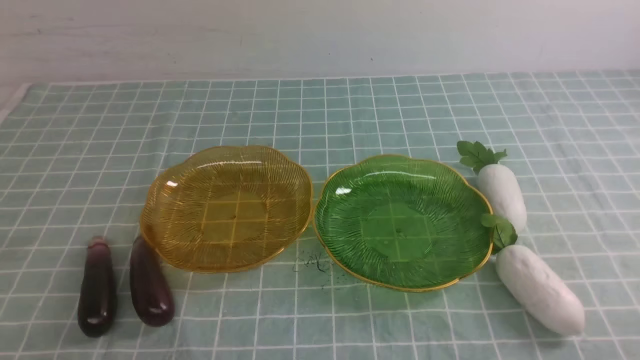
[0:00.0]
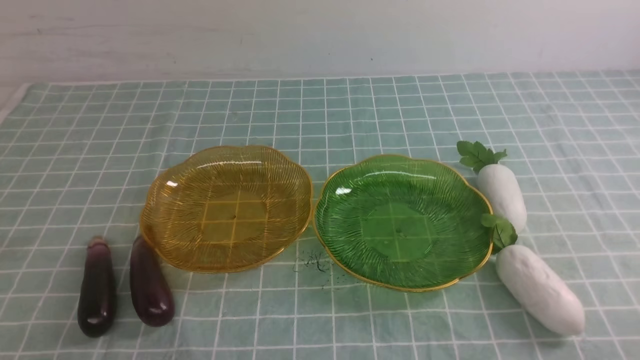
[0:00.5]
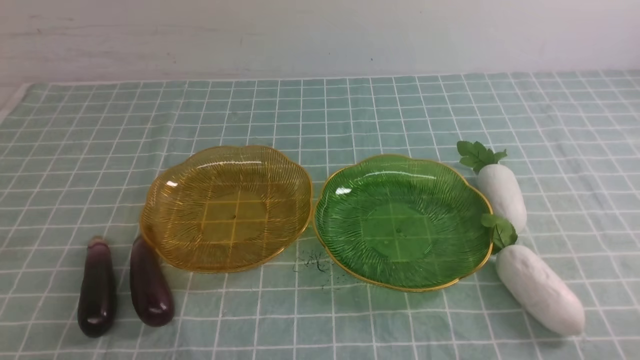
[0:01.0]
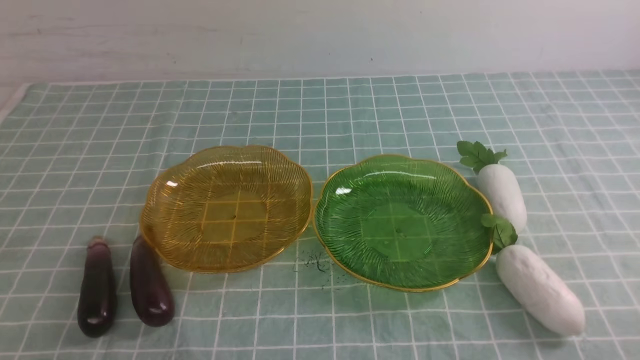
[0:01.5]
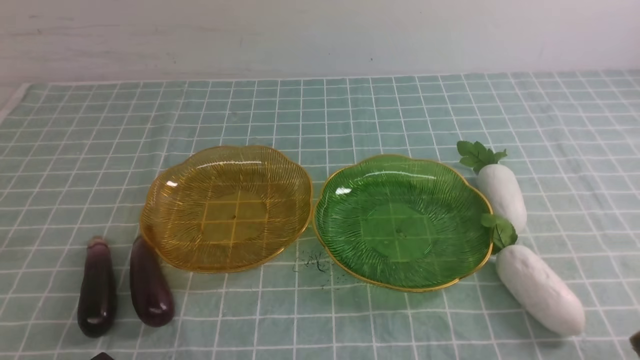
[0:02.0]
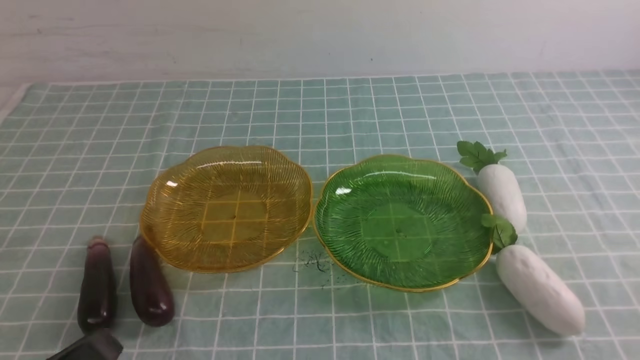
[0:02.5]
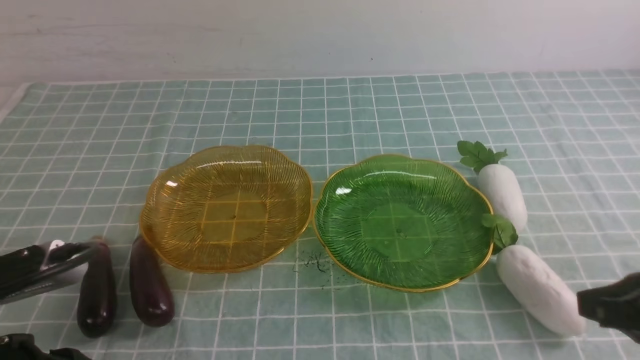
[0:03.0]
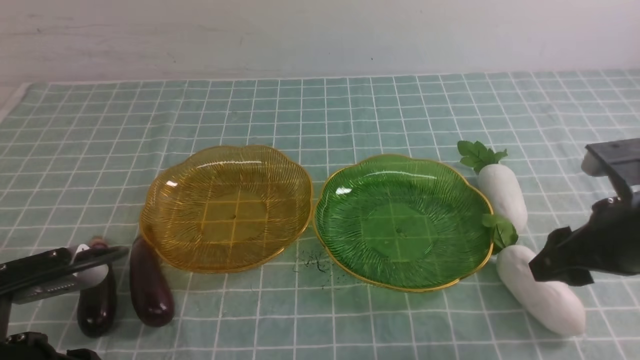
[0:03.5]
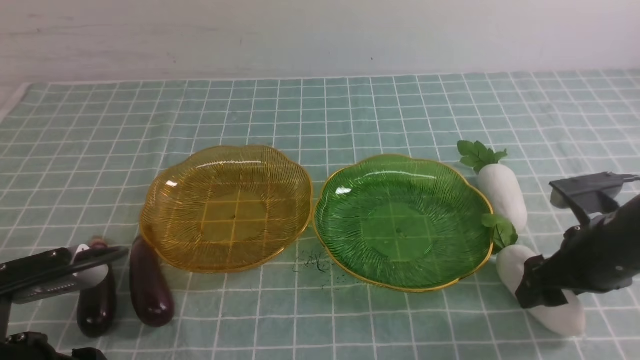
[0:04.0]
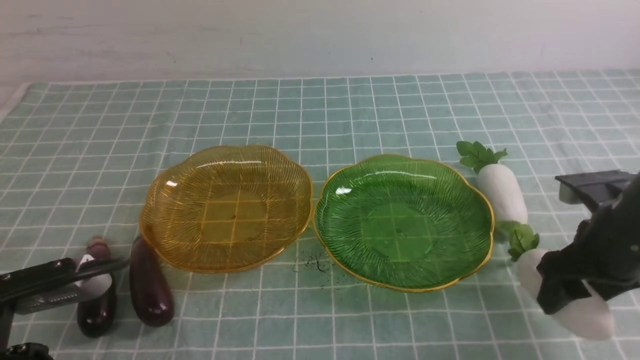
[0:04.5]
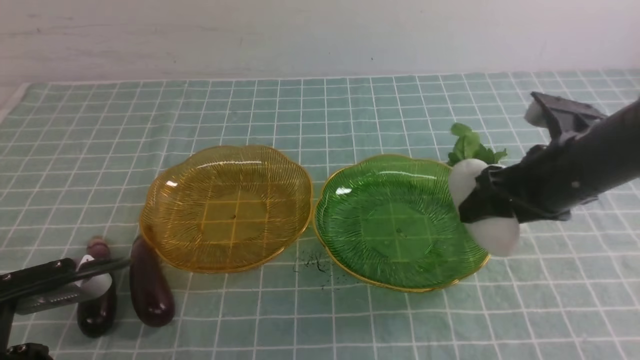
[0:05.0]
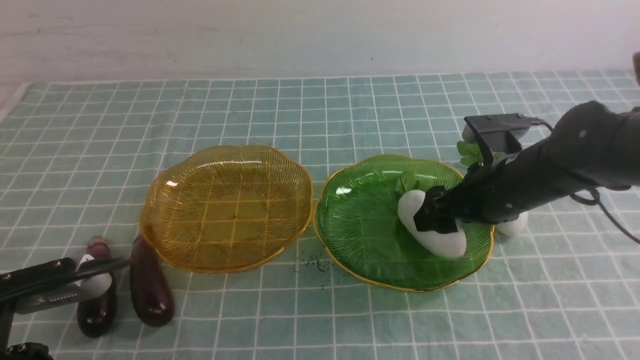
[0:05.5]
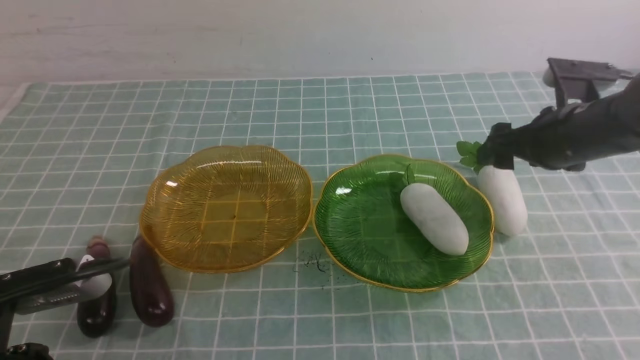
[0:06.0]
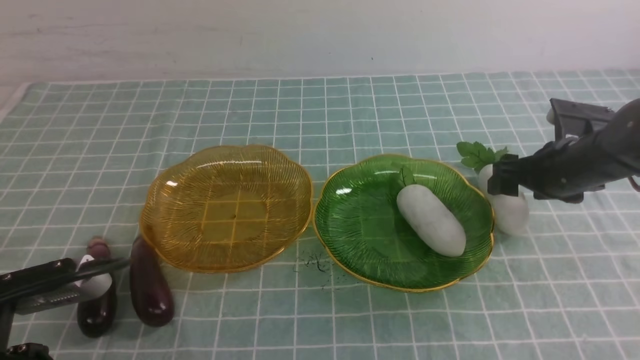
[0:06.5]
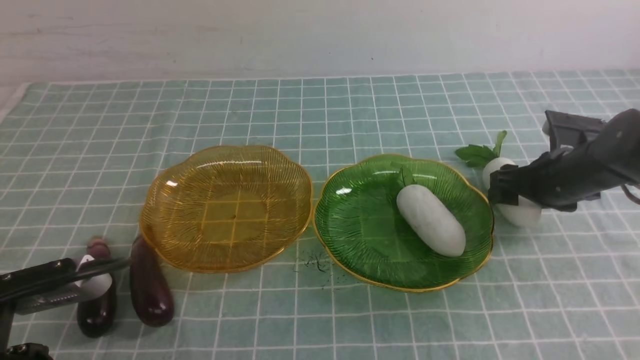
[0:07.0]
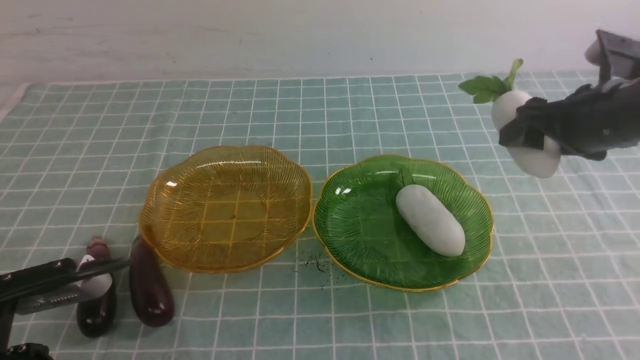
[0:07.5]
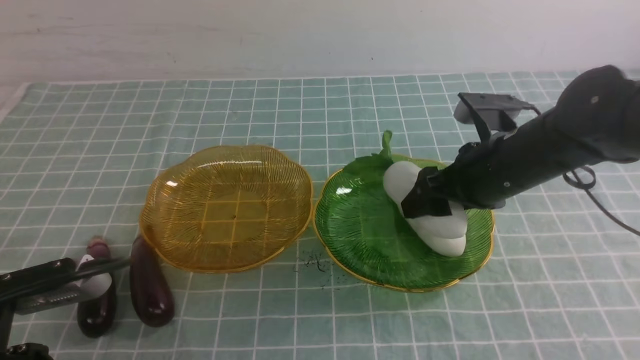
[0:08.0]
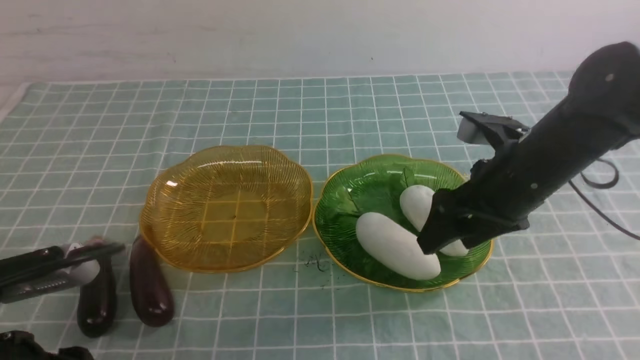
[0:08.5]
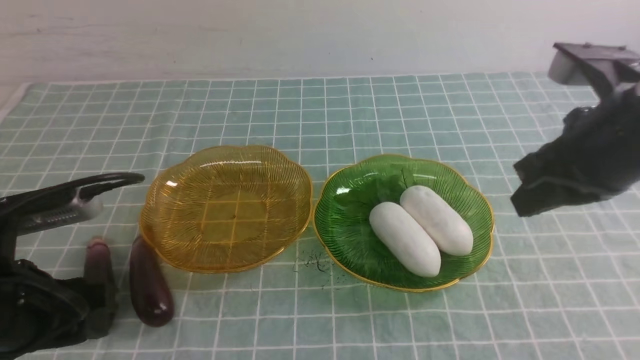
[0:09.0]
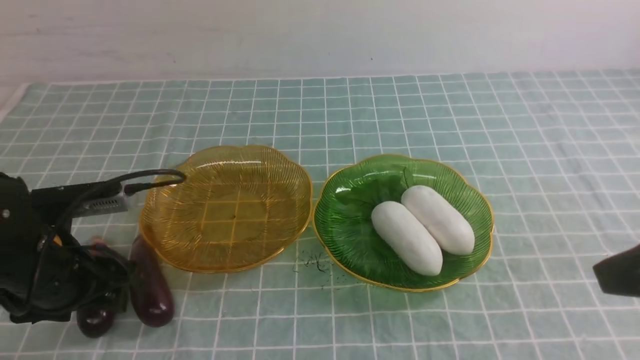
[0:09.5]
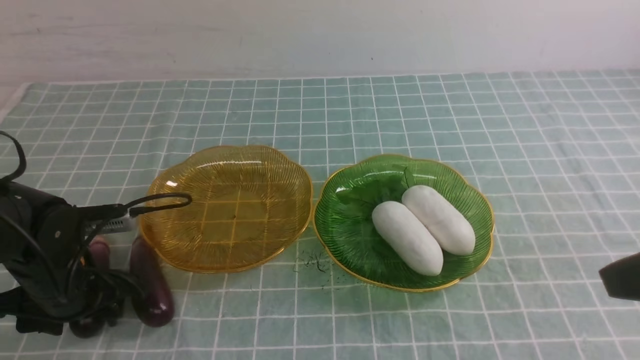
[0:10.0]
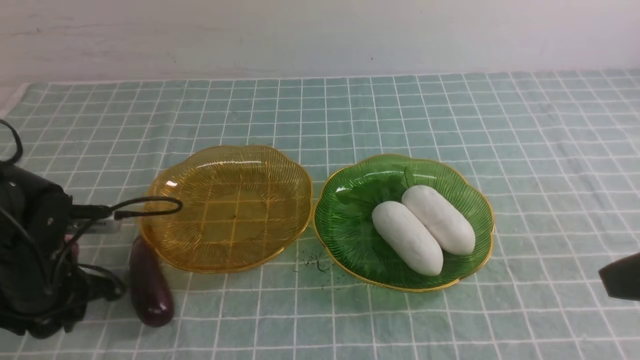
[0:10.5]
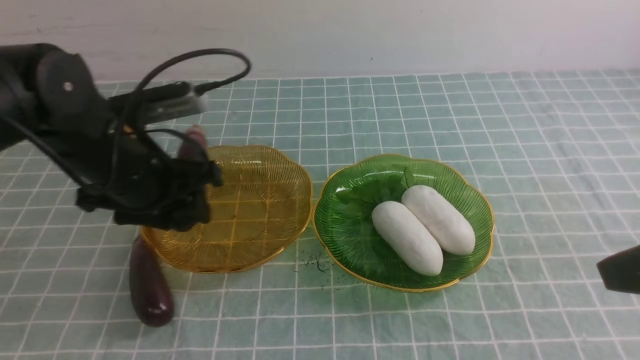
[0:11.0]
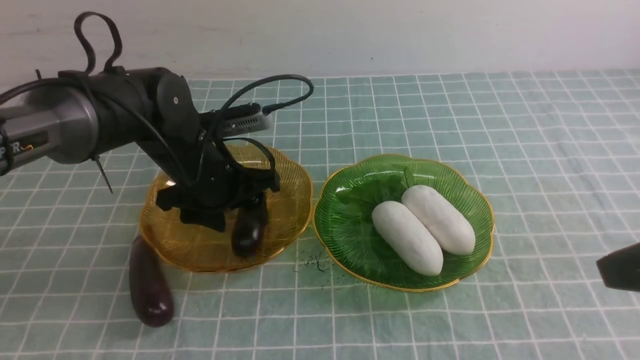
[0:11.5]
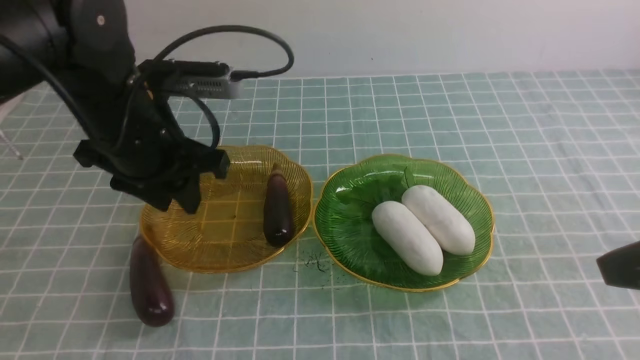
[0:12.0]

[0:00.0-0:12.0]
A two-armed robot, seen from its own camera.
Step, 0:00.0 to 0:08.0: use the right arm to grab a radish and put it into the right plate.
0:02.0 to 0:04.0: The right gripper shifts some 25 cm forward, and opens up. Meanwhile the left gripper moves upward and forward, about 10 cm, and opens up.
0:04.0 to 0:06.0: The right gripper goes about 10 cm forward.
0:06.0 to 0:08.0: The right gripper is displaced to the left by about 10 cm.
0:08.0 to 0:10.0: The left gripper shifts approximately 20 cm forward and downward, and opens its fingers; the right gripper shifts approximately 25 cm backward and upward, and closes its fingers.
0:10.0 to 0:12.0: The left gripper moves upward and to the right, about 15 cm, and closes.

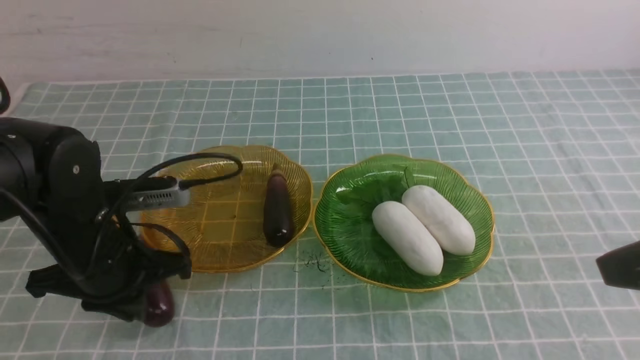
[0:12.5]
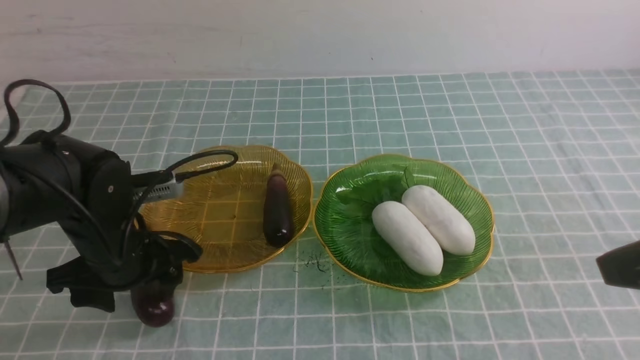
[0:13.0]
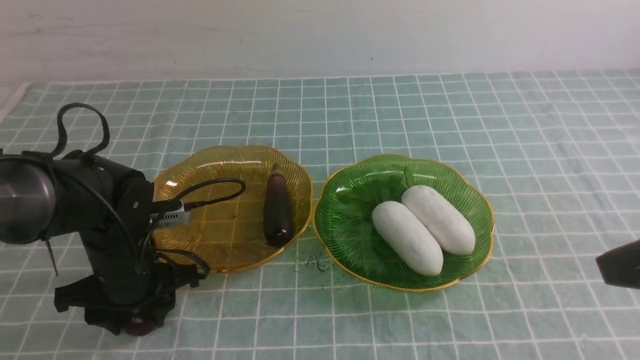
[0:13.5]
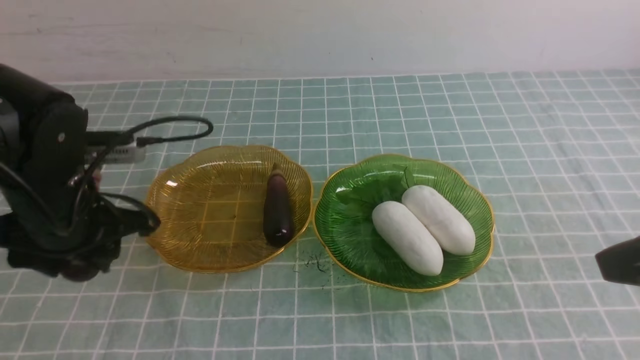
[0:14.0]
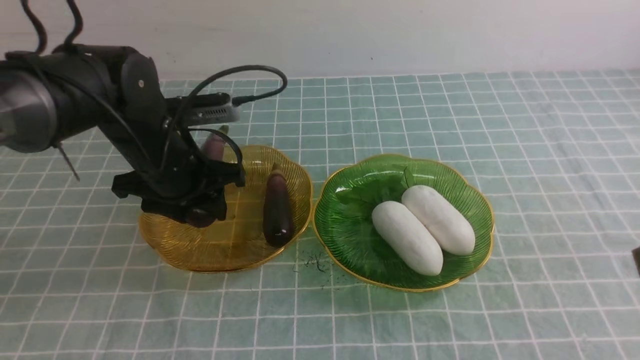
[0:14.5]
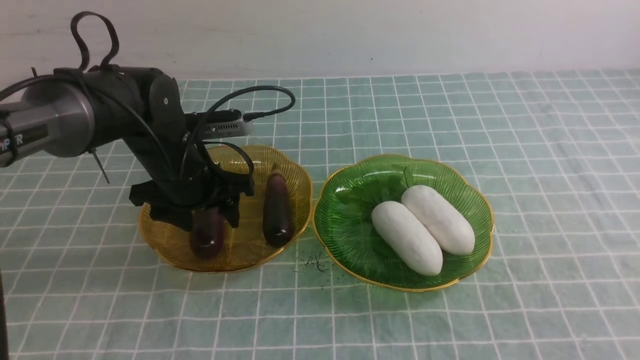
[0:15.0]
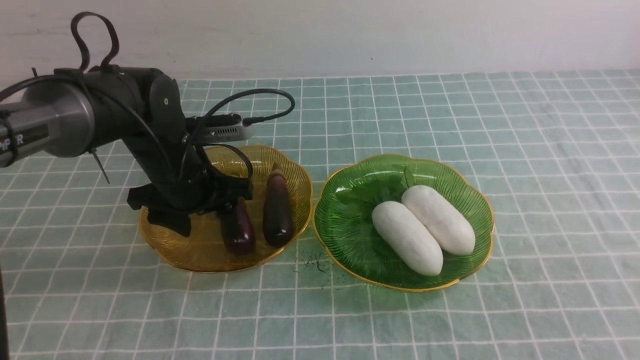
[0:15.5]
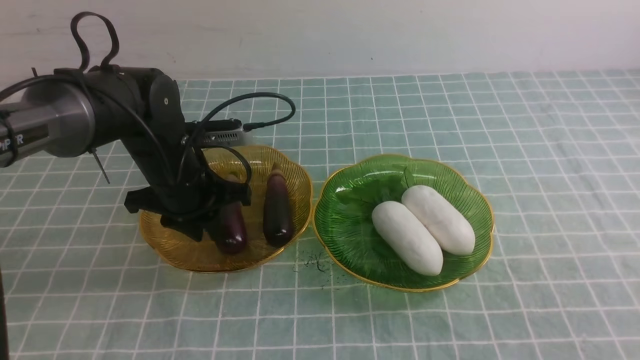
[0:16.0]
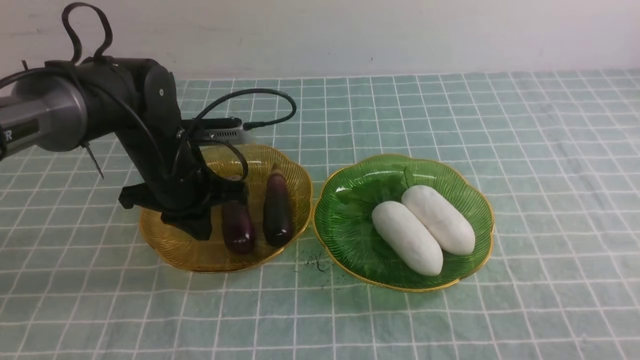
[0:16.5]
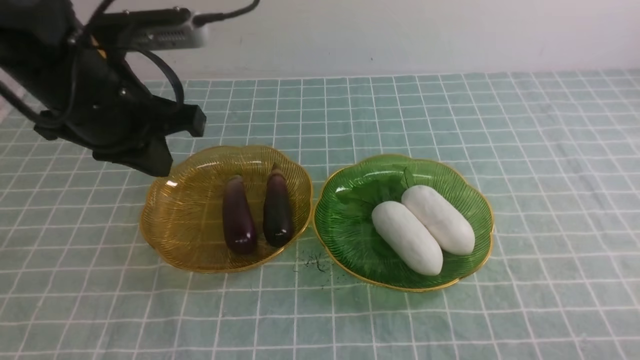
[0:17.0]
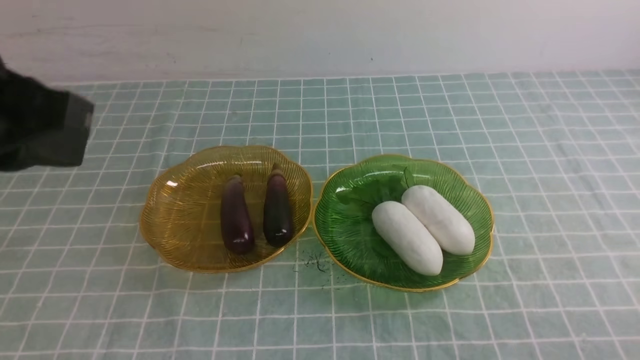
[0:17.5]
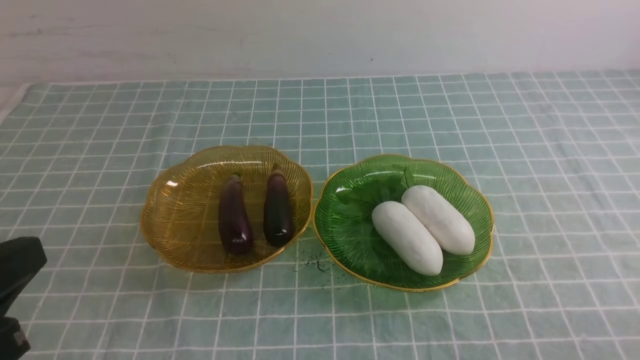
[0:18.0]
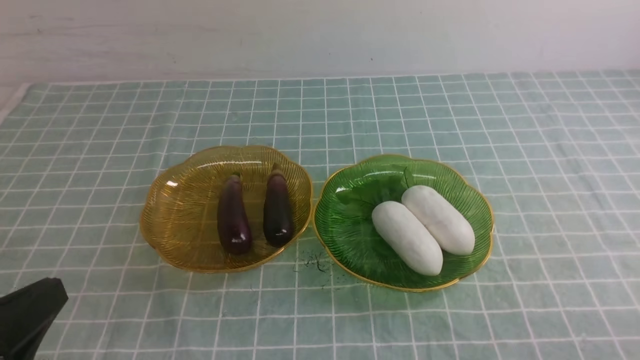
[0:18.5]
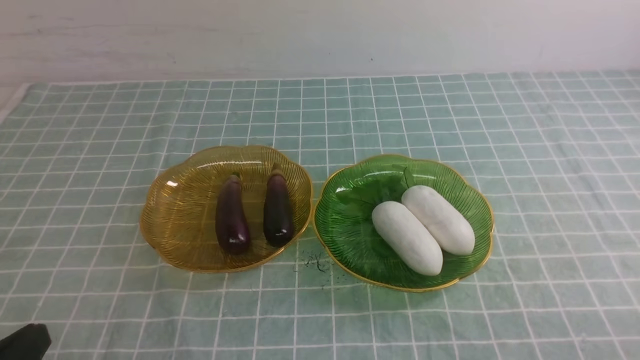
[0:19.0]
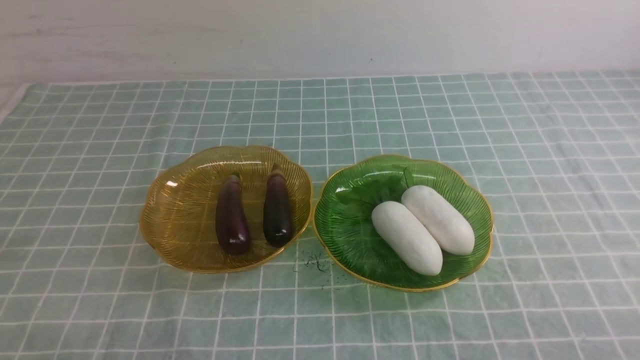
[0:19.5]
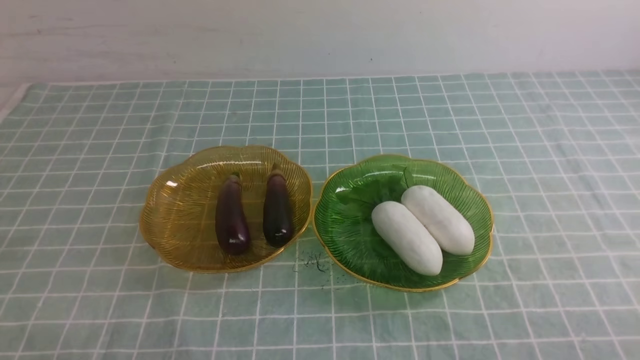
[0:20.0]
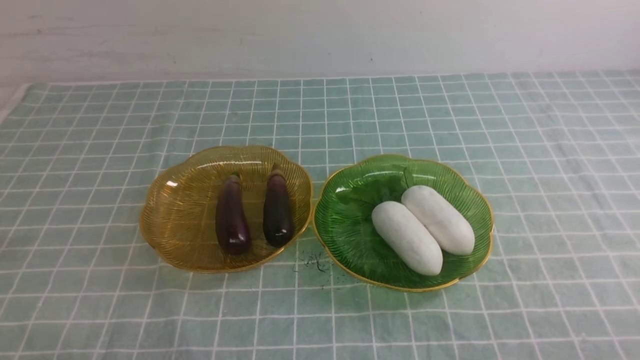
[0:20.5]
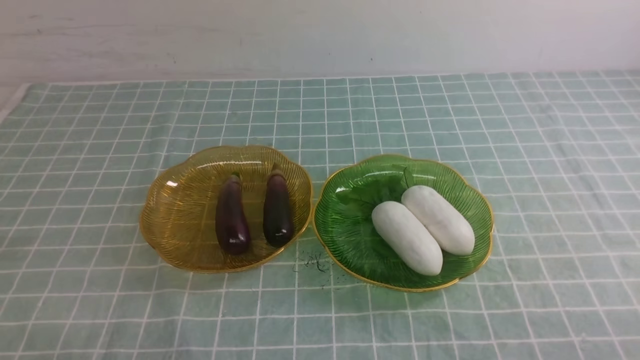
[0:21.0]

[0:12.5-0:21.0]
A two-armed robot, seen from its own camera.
Step, 0:12.5 to 0:15.0: use the left arm to grab an eggplant and put it into the left plate.
0:12.5 to 0:14.5: The left gripper heads forward, covering roughly 10 cm, and opens.
0:14.5 to 0:16.5: The right gripper is displaced downward by roughly 15 cm. Meanwhile the left gripper closes its fingers.
0:16.5 to 0:19.0: The left gripper is displaced backward by approximately 30 cm.
